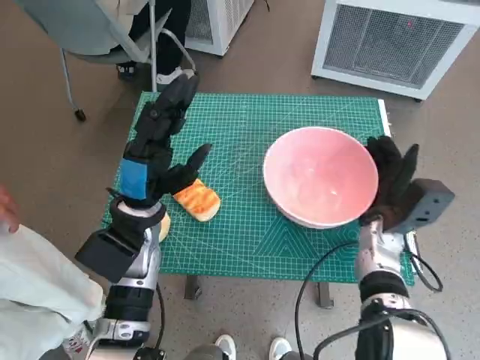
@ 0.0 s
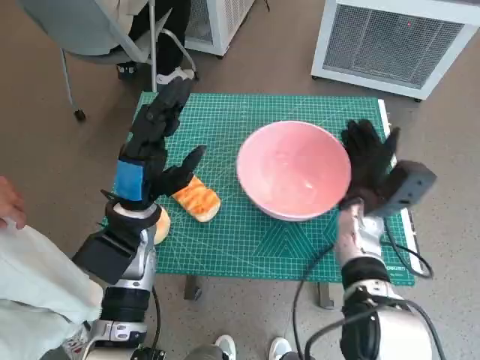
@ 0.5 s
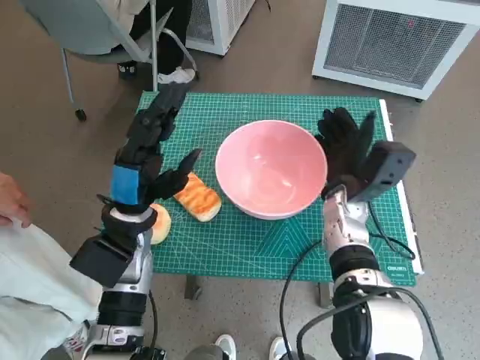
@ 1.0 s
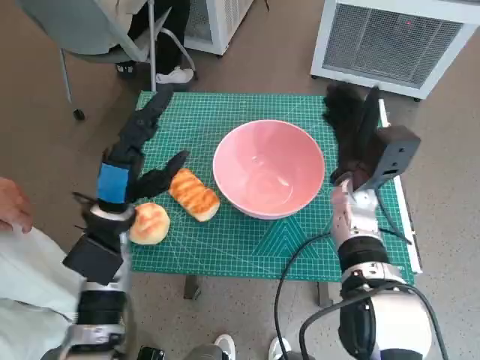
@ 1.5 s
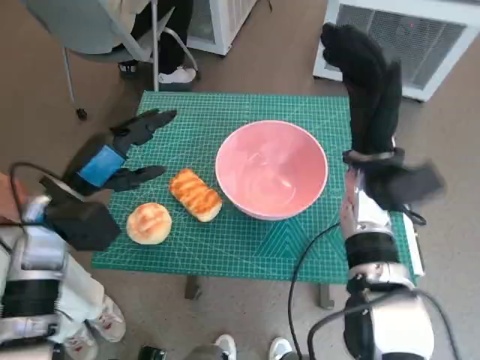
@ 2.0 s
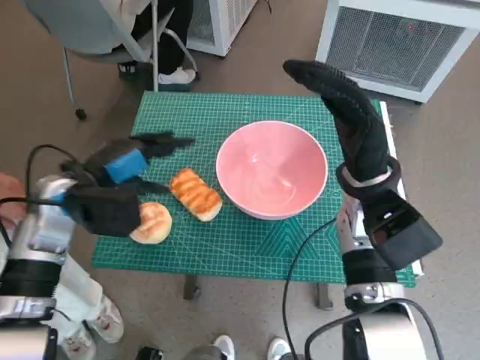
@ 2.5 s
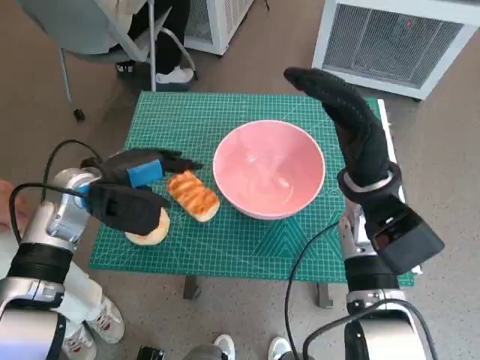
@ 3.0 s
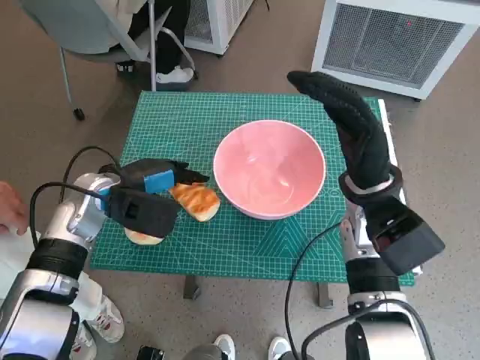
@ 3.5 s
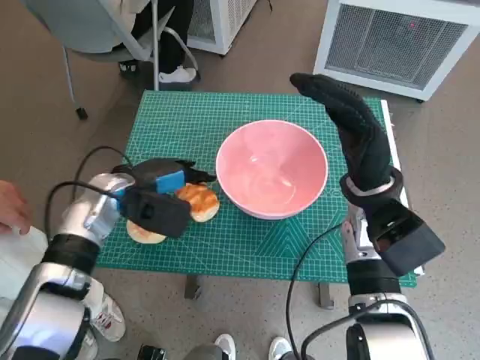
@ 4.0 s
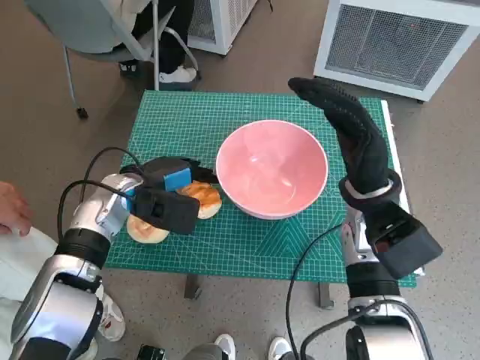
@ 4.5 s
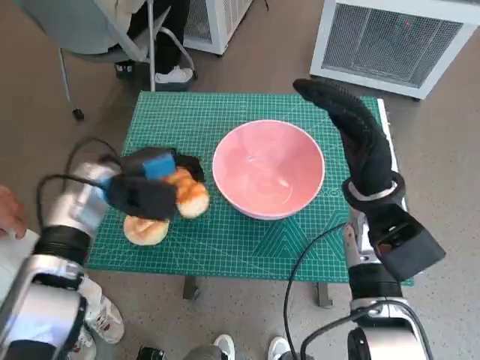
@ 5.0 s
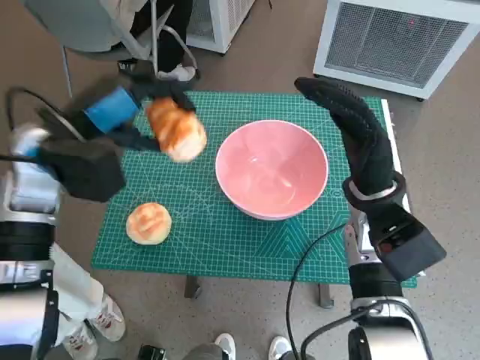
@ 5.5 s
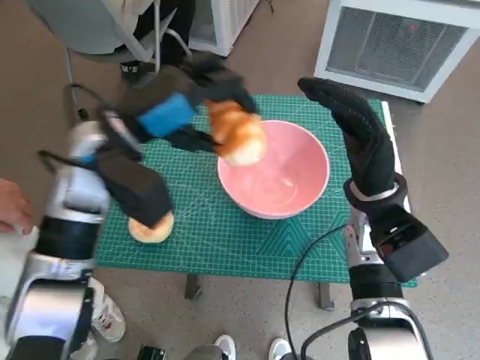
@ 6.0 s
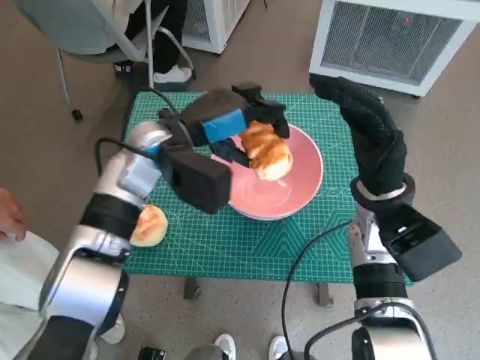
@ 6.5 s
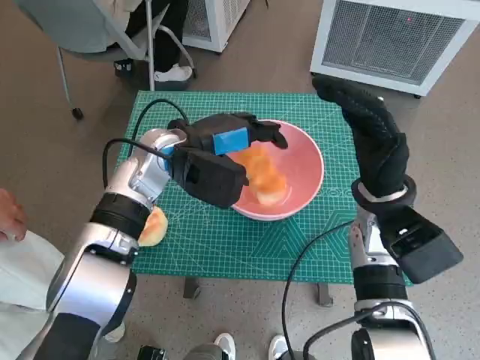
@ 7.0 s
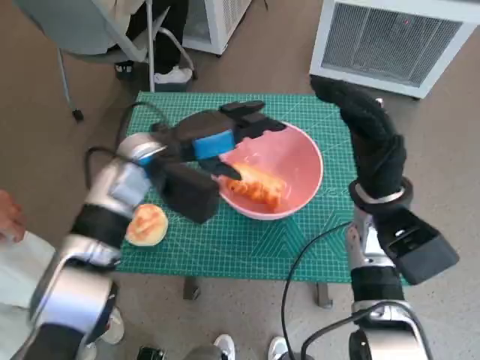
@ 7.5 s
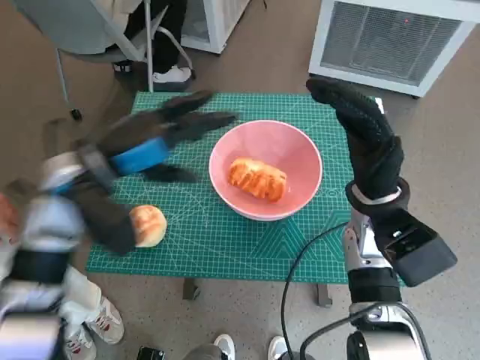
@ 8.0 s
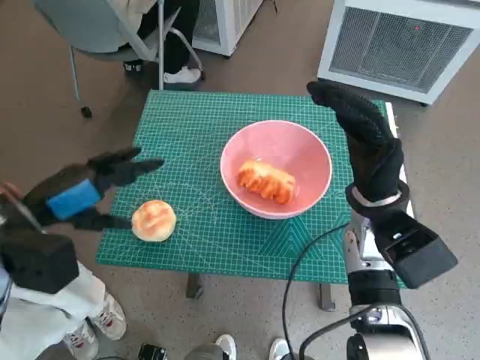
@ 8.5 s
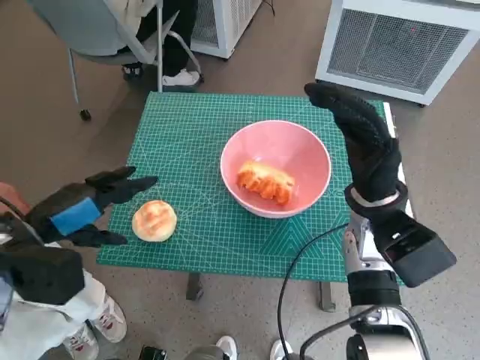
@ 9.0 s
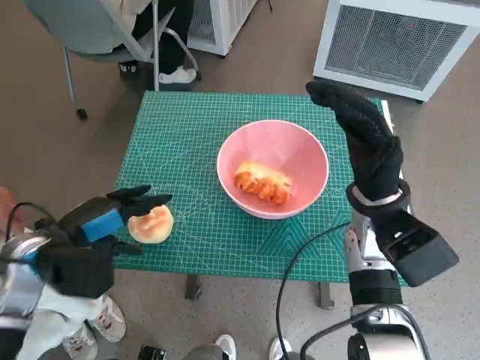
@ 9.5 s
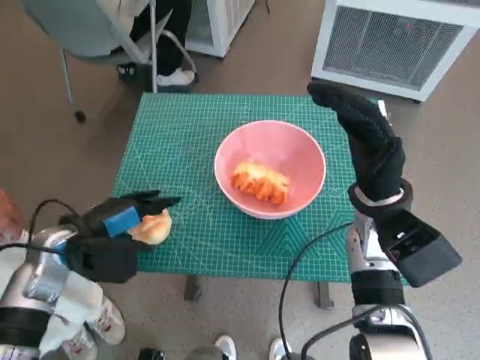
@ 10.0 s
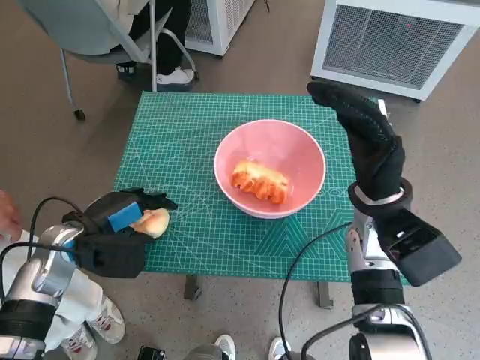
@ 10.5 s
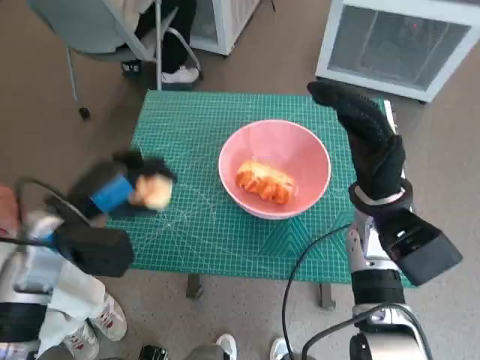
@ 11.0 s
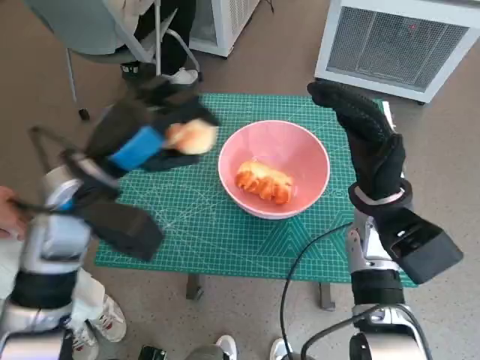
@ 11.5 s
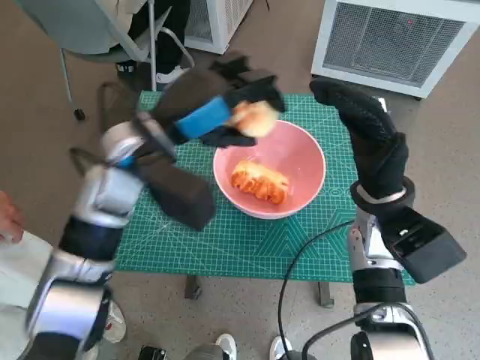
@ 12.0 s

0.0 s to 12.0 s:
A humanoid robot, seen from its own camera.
Task of the whole recording: Push the bowl to the center of the table and put the bread into the bowl.
Step, 2.0 to 4.5 s: Grasp the long bread with left hand.
Step, 5.0 to 7.0 s: Place the long bread in pink bowl with left hand.
Step, 7.5 to 10.0 s: Grasp the round bread with left hand.
0.0 to 2.0 s: The right hand goes about 15 cm upward and to the left, while the left hand heads to the left, covering roughly 10 cm.
2.0 to 4.0 s: The left hand travels forward by about 5 cm.
4.0 to 6.0 s: The left hand moves upward, about 10 cm.
8.0 to 10.0 s: The left hand shifts about 10 cm downward and to the left.
10.0 to 12.0 s: The left hand shifts approximately 20 cm to the right, upward and forward.

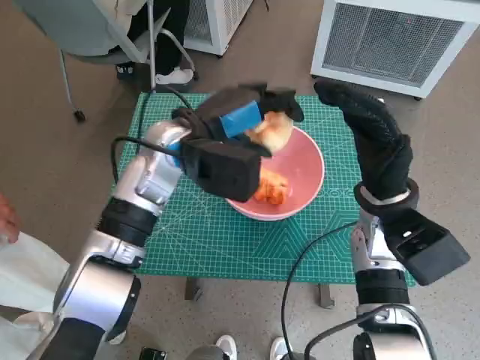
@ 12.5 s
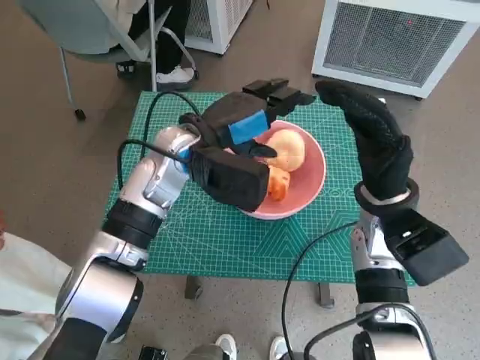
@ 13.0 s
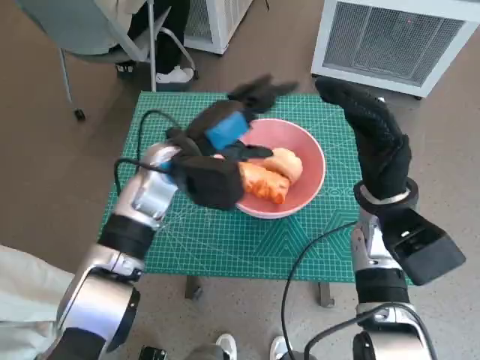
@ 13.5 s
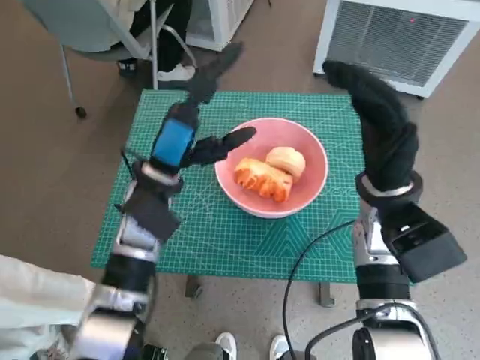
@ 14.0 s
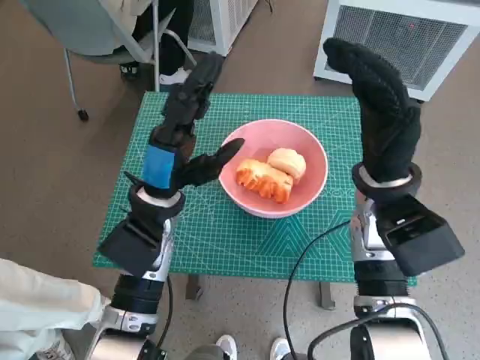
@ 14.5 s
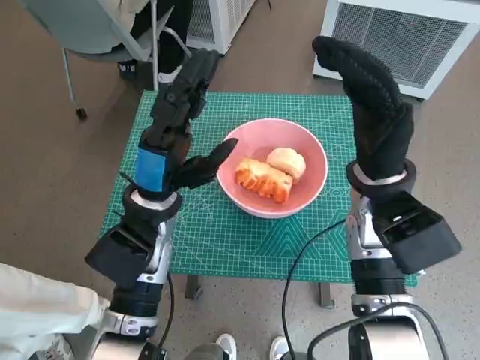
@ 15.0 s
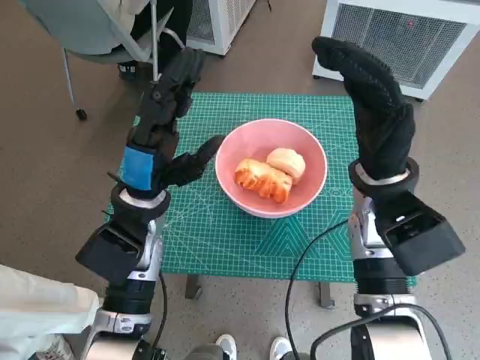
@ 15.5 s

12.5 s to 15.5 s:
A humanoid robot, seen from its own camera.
Task of the whole recording: Push the bowl to the center of the table and put the bread into the bowl.
12.5 to 14.0 s: The left hand is displaced downward by approximately 5 cm.
